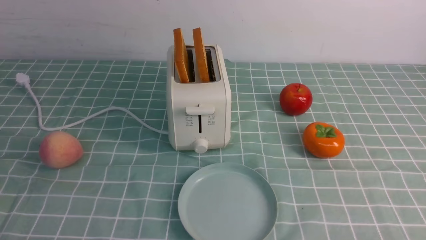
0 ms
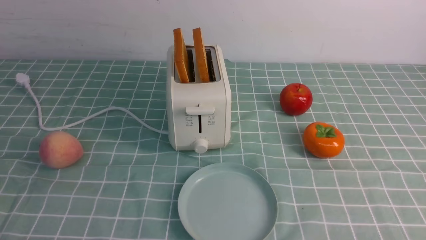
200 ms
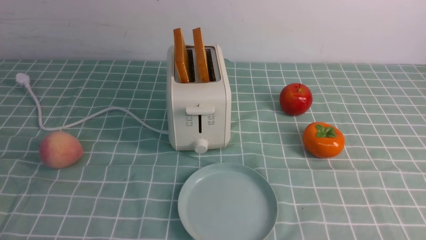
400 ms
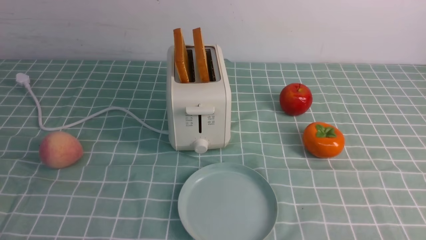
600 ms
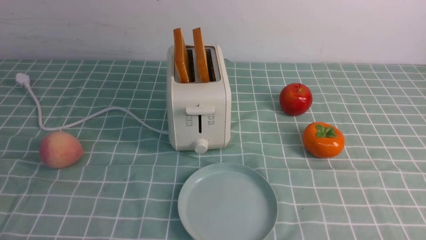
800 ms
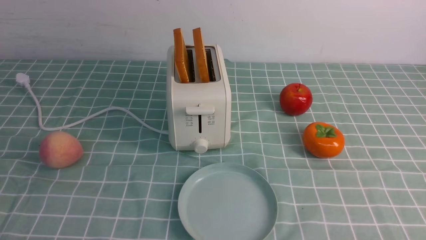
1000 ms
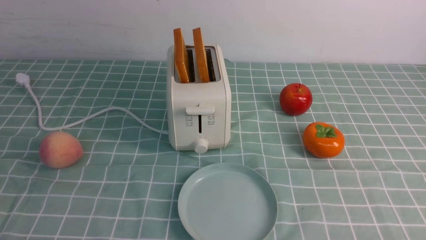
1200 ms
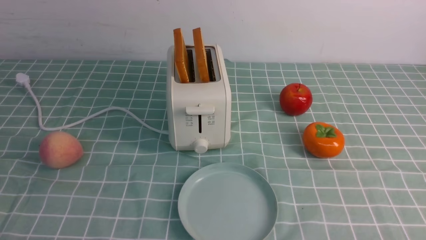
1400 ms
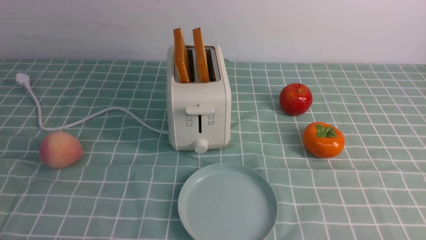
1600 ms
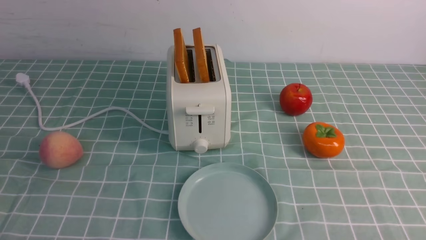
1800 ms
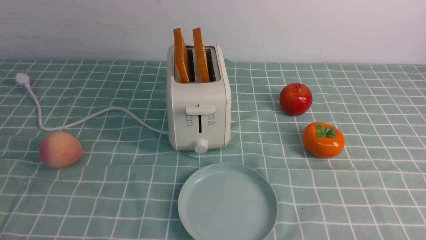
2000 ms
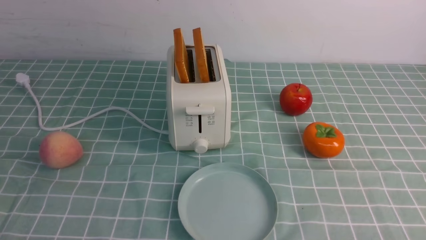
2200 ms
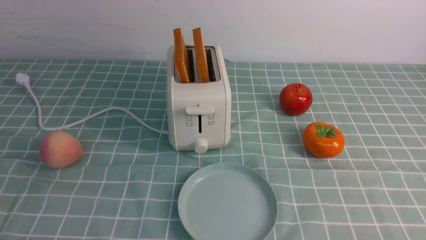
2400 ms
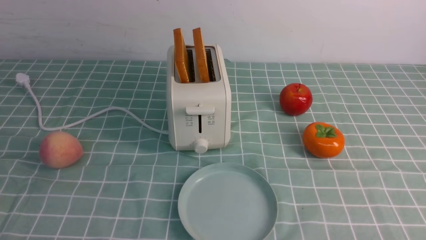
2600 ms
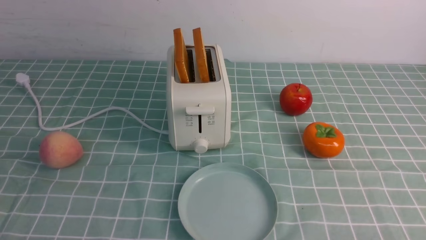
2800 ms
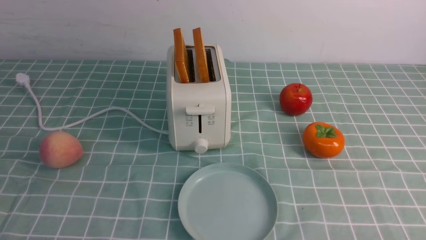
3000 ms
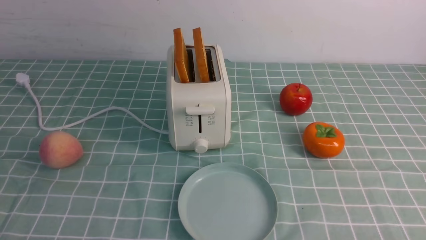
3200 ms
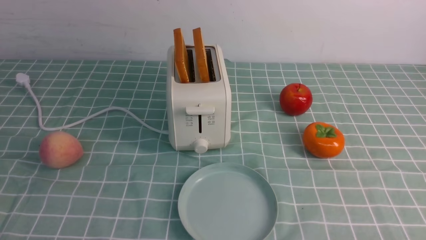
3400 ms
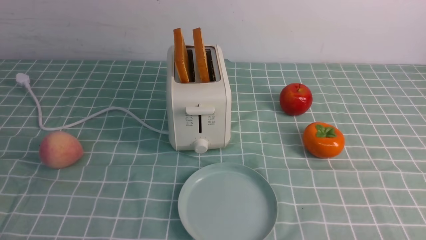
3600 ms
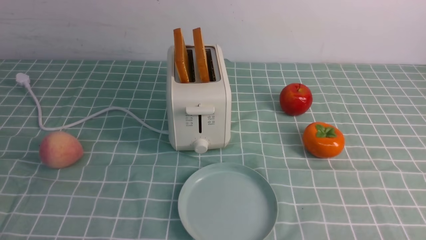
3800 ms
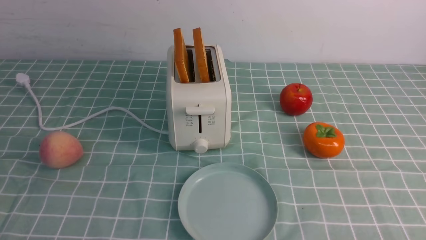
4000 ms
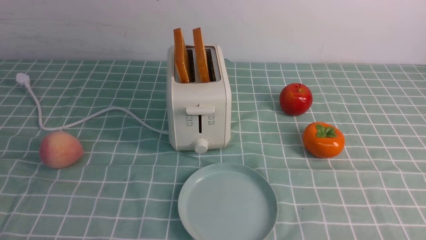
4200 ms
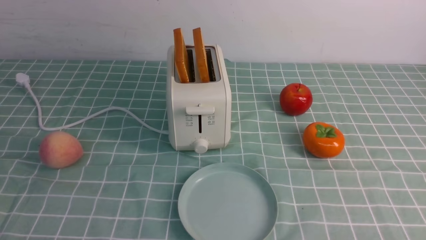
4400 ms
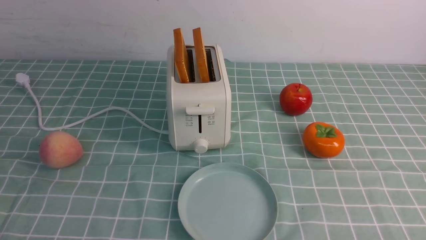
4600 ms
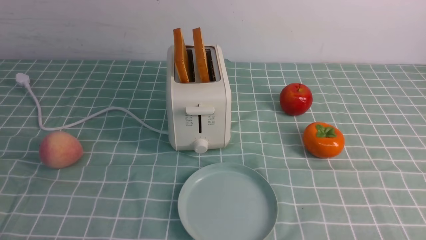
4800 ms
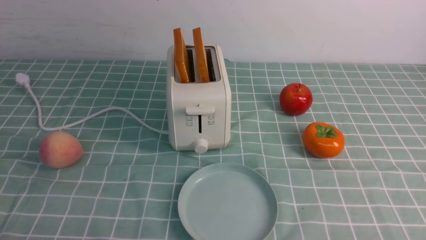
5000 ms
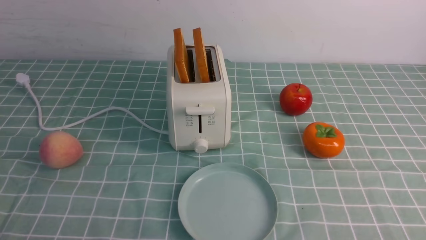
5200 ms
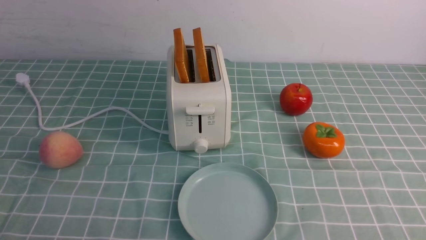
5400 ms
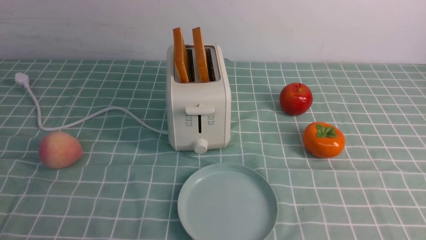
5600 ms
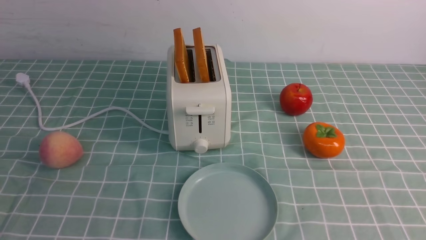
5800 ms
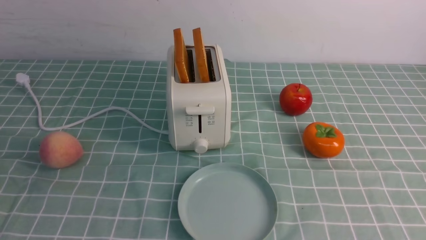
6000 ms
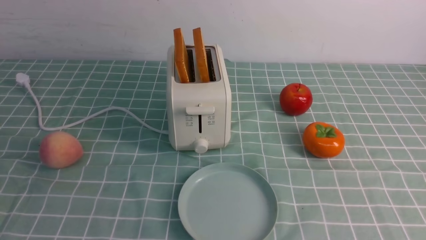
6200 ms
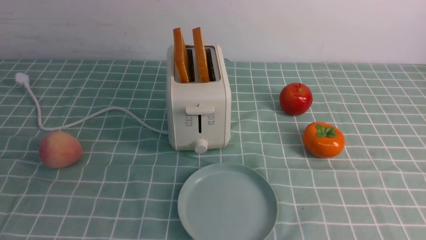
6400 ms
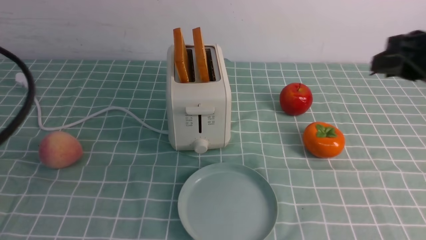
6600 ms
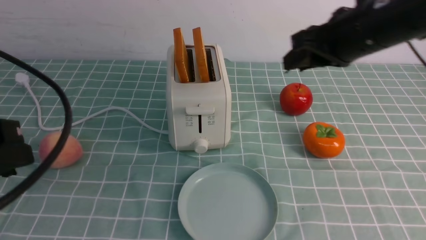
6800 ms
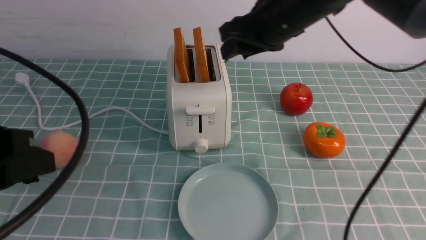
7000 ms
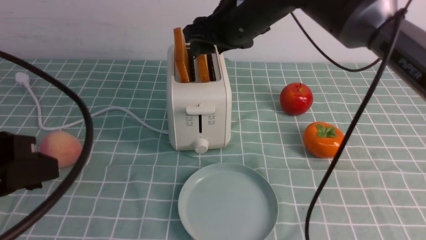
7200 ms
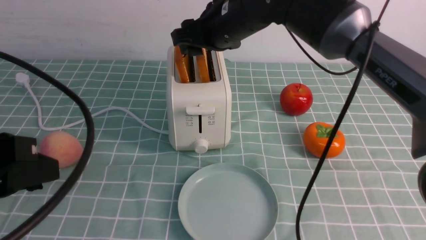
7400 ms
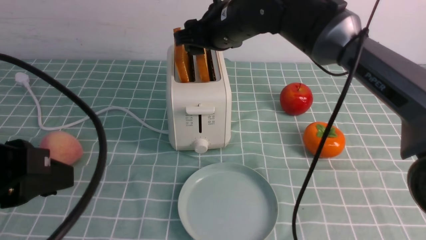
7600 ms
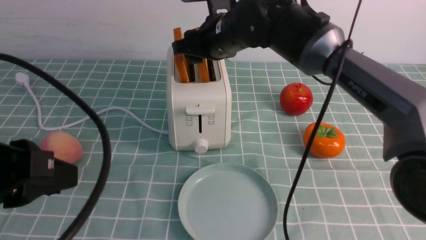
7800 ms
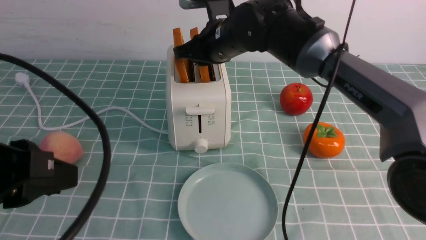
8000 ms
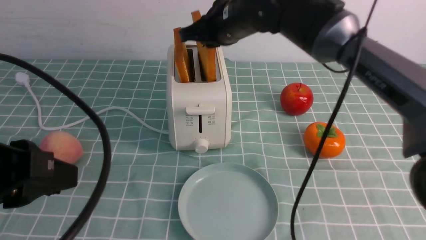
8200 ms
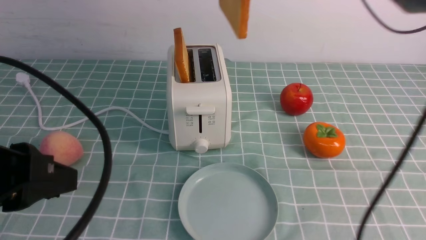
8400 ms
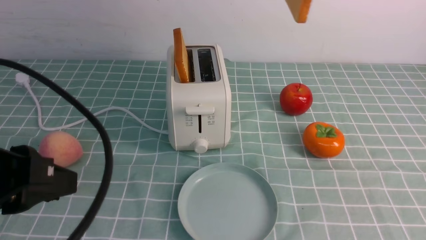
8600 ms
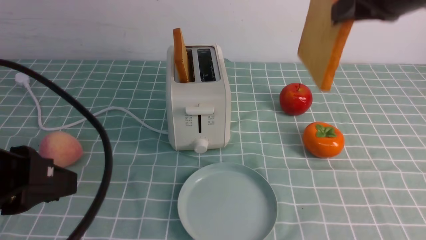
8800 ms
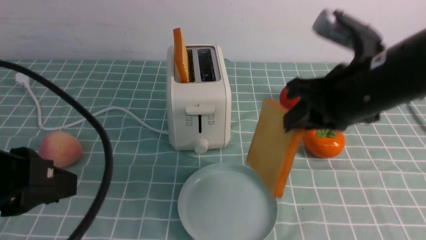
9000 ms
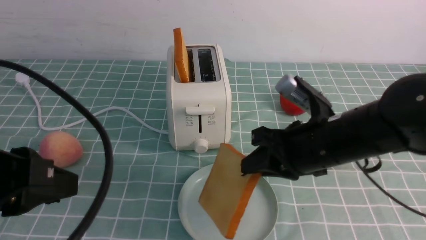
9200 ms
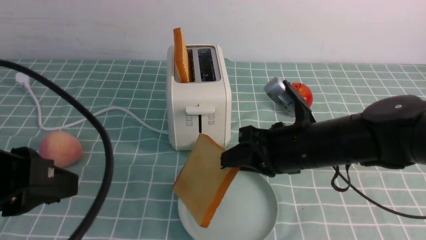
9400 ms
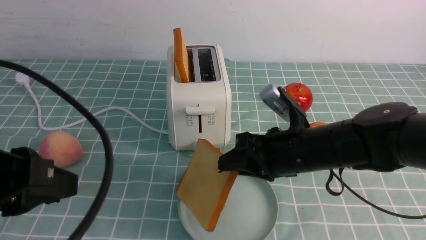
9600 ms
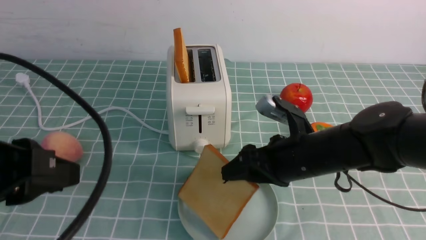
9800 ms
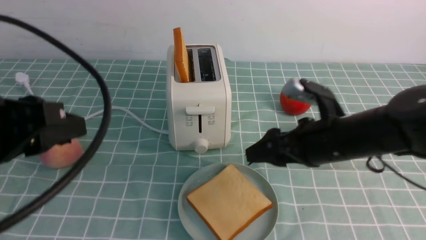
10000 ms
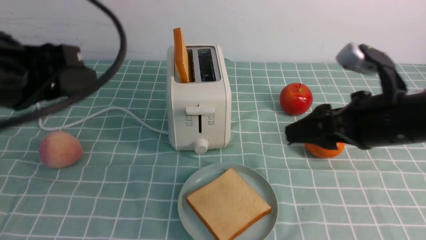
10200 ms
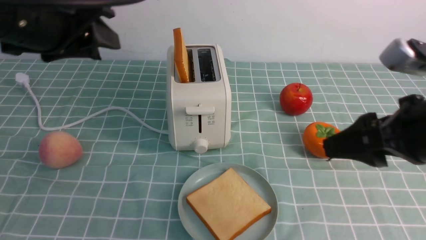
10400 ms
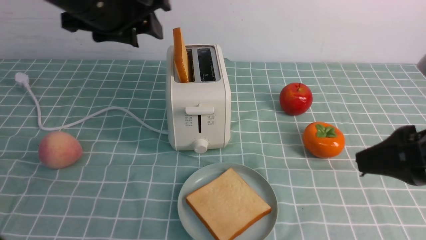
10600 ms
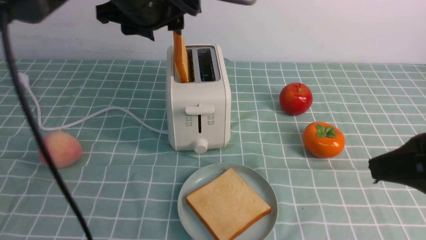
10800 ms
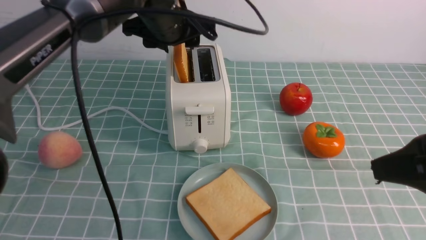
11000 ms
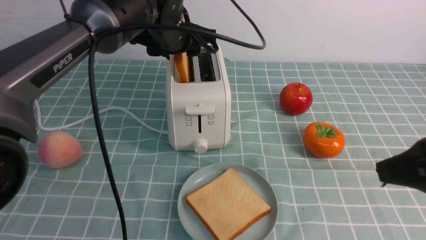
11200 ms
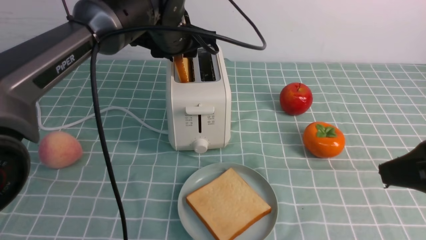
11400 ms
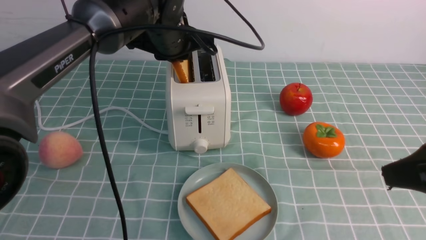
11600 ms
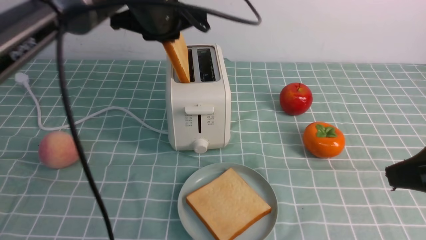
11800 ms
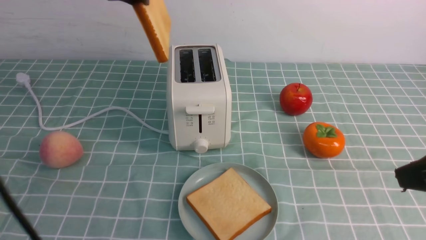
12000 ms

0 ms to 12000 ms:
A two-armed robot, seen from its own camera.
Task of the whole recording: take toasted bread from bread machine on blue coffee table place on plate.
Step, 0 ms to 8400 ms: use the right arm to take out a slice of bread.
Step, 8600 ms to 10000 ms: use the right arm to put a slice of bread into the plate.
1600 ms to 4400 ms: Neither gripper changes place.
6000 ms to 7600 ms: The left gripper goes approximately 10 cm forward, while the right gripper moves forward and to the left, some 50 cm, and opens up.
7600 ms to 9000 ms: The right gripper shifts approximately 20 cm to the right and backward, and closes.
9000 ms to 10400 ms: The left gripper travels forward and upward by some 15 cm, while the right gripper moves backward, roughly 5 cm, reaches some 15 cm downward, then returns, and opens its fingers.
10400 ms to 12000 ms: The left gripper shifts approximately 15 cm forward and to the right, and closes its fingers. Meanwhile the right gripper moves backward, some 5 cm, and closes up.

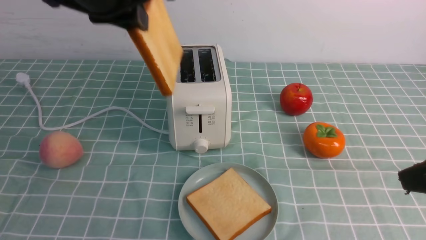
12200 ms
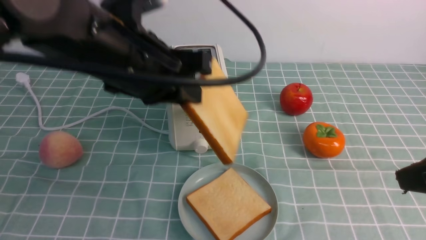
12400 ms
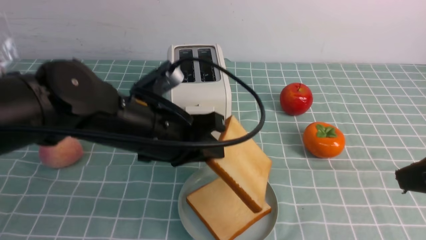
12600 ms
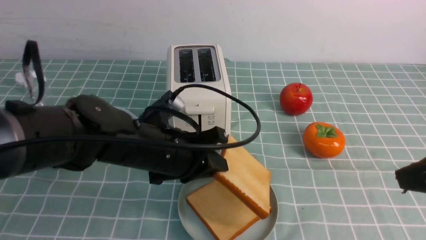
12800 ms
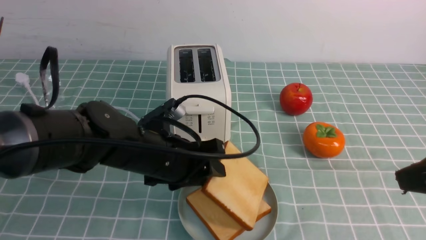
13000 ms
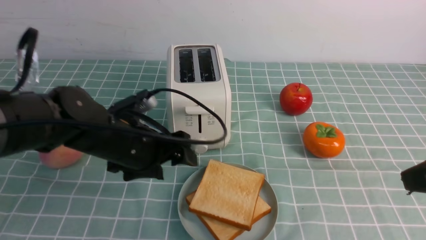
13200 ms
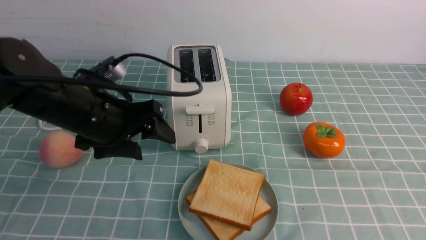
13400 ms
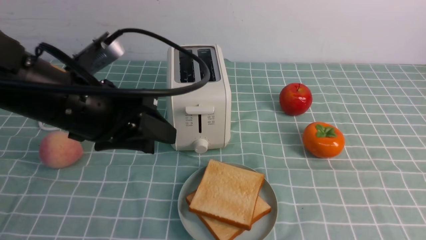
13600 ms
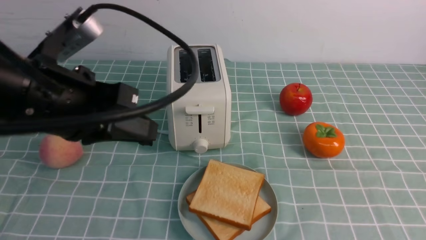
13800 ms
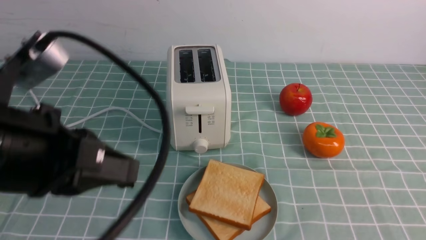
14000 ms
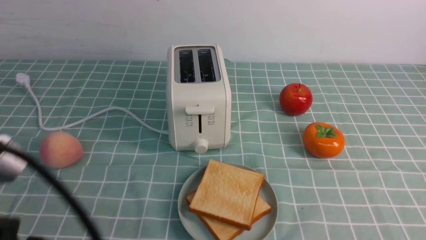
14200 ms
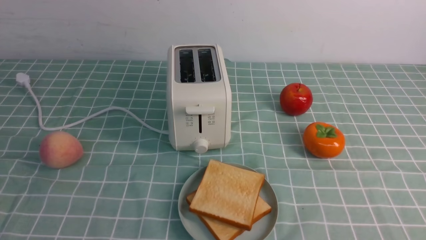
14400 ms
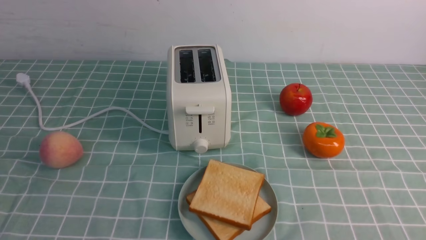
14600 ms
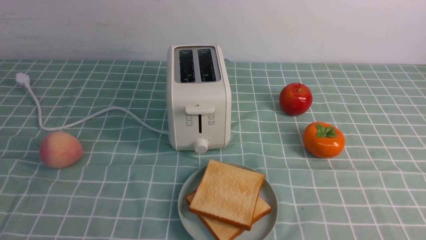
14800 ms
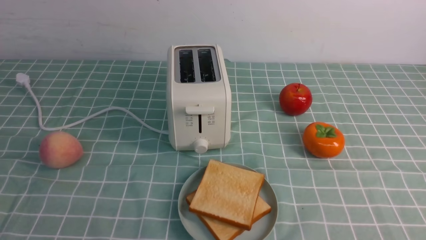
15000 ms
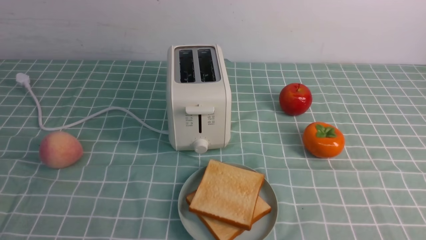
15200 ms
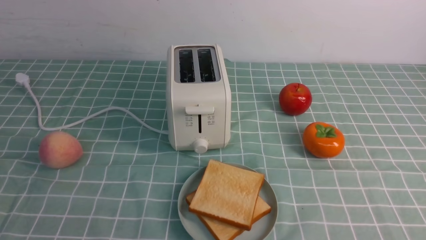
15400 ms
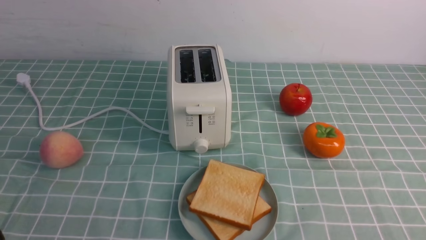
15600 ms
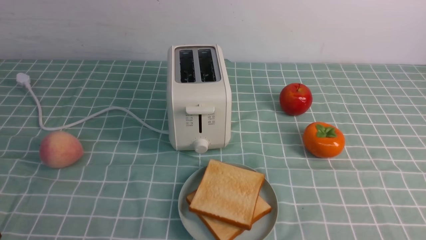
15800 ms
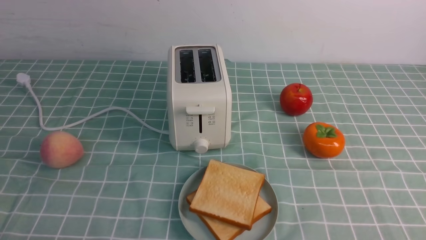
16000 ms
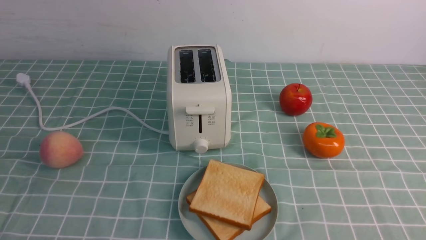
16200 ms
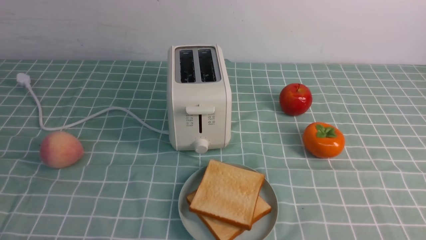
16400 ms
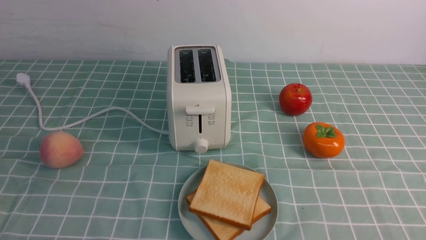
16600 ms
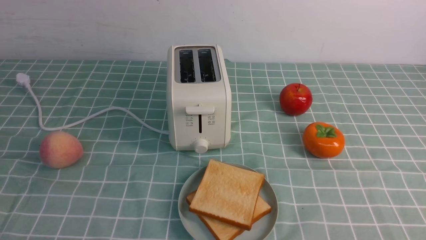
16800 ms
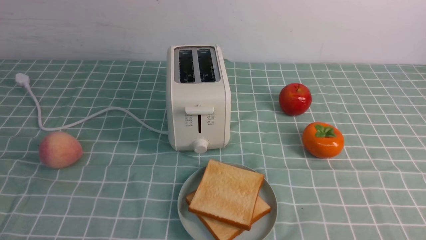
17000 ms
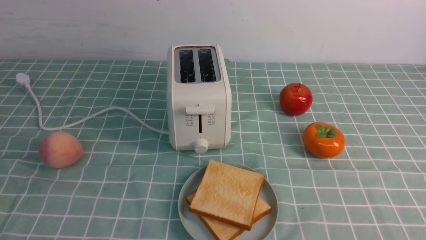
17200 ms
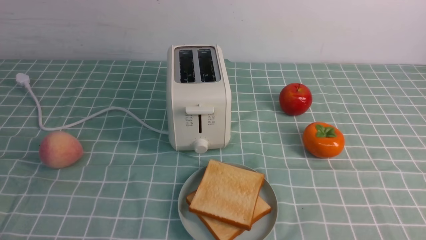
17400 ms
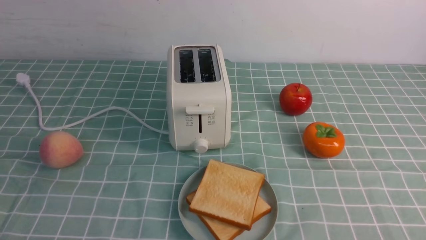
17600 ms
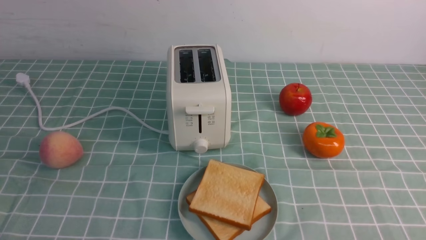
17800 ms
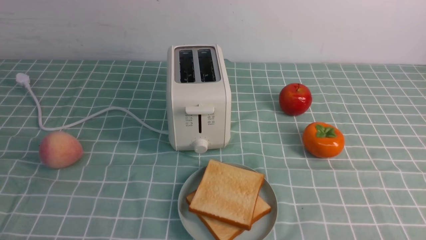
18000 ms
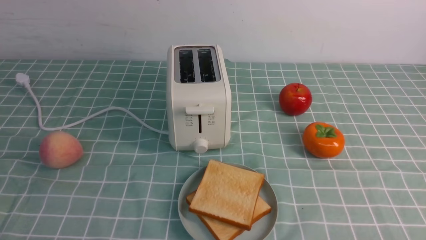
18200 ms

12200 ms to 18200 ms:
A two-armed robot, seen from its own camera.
Task of the whole recording: take toasted bread from bread machine on blue coffee table place on plate.
Step, 12400 ms to 13800 ms: use the left arm to put a slice of bread into the empty plate.
12200 ms to 13800 ms: The right gripper shifts about 5 cm backward, and closes up. Meanwhile the left gripper moves backward and downward, about 15 cm, and opens, then closes again.
13800 ms to 15200 ms: The right gripper goes roughly 15 cm downward and backward, while the left gripper is displaced backward by some 20 cm, and closes up.
